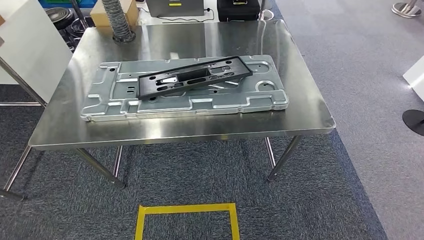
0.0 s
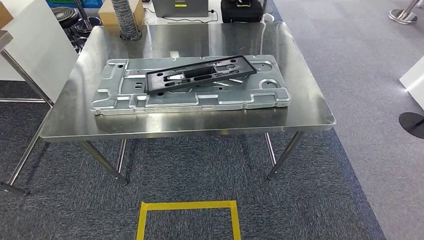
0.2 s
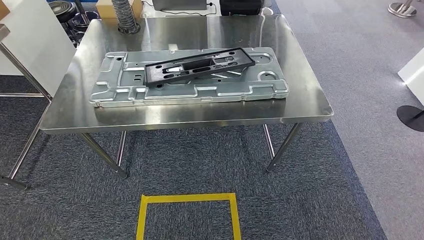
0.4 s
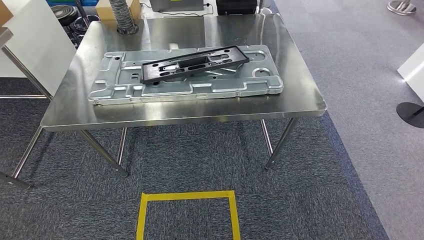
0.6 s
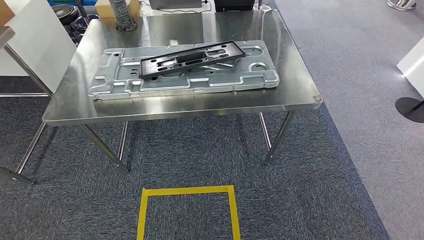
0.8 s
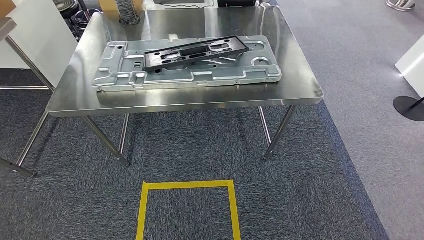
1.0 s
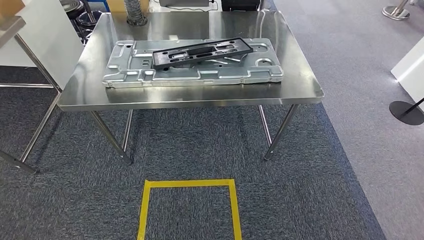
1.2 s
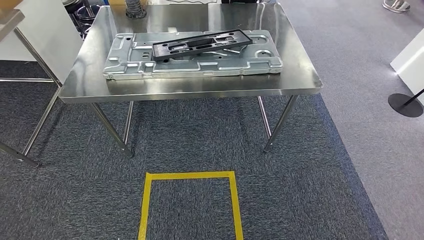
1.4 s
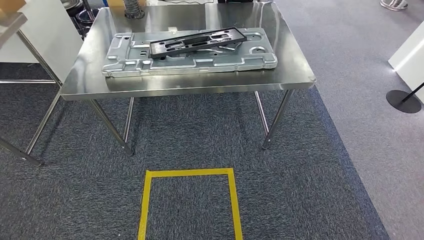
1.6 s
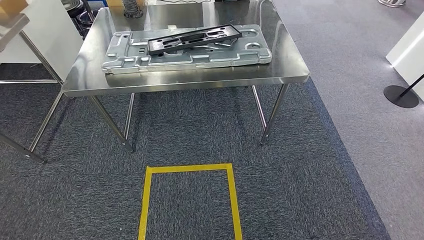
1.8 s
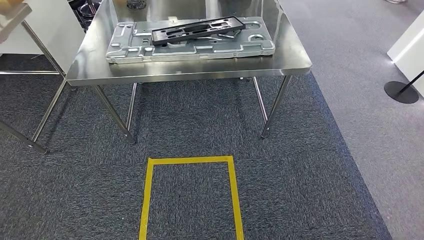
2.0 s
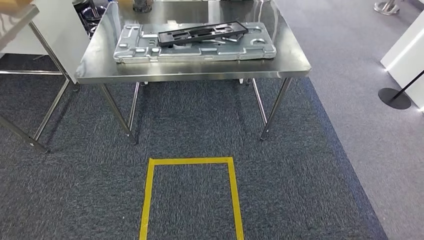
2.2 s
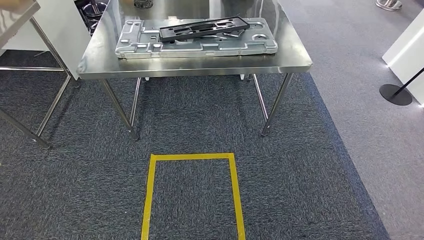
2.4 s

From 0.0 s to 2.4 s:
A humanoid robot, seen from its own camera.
Step, from 0.0 s to 2.4 s: Move to the initial position of the workbench.

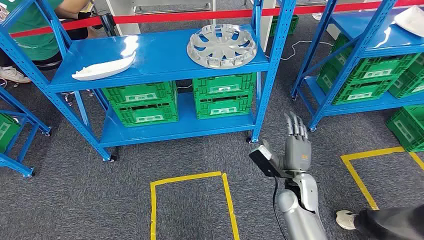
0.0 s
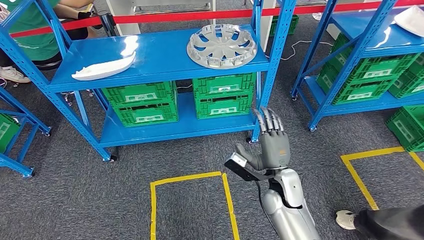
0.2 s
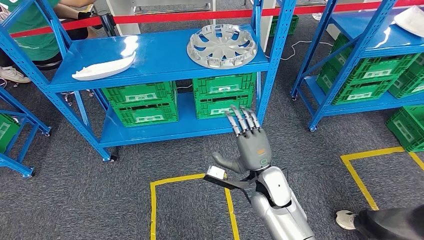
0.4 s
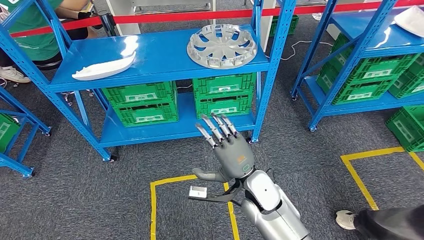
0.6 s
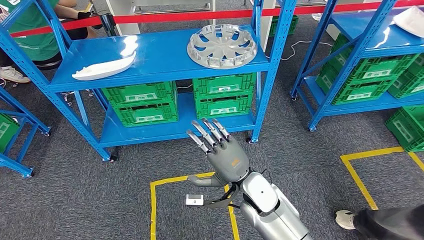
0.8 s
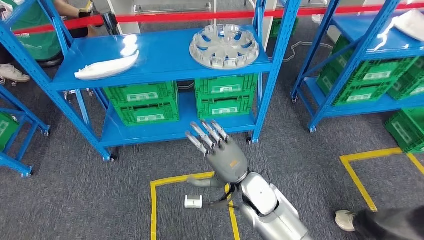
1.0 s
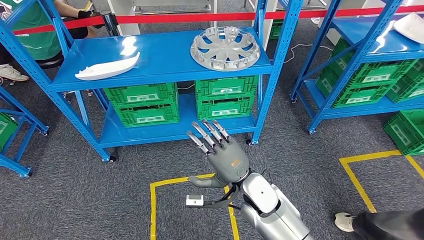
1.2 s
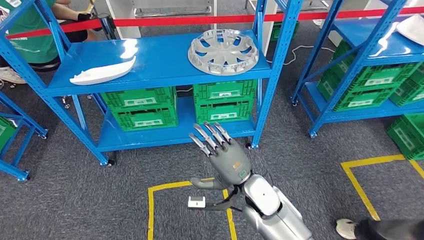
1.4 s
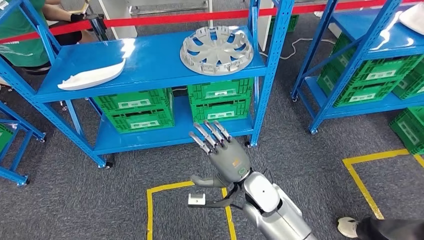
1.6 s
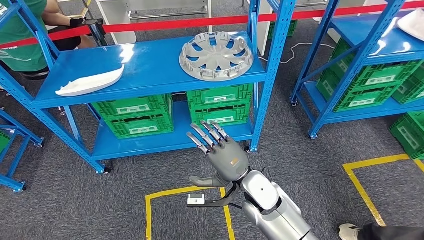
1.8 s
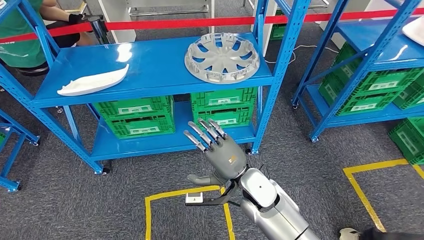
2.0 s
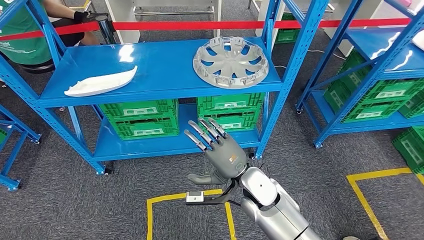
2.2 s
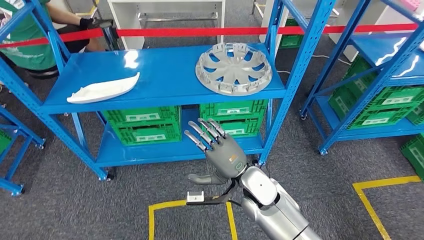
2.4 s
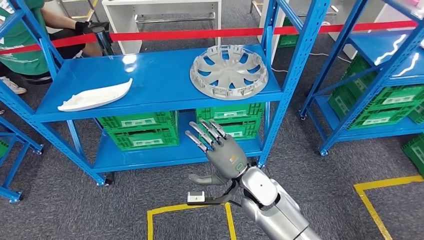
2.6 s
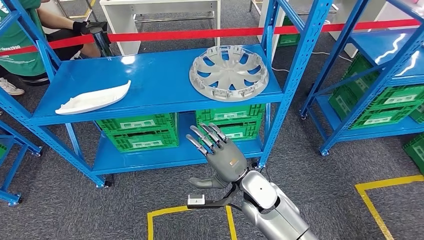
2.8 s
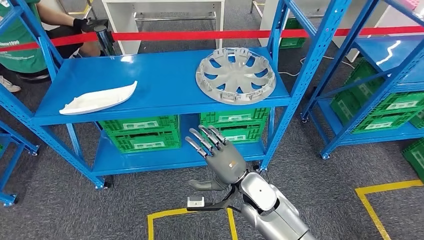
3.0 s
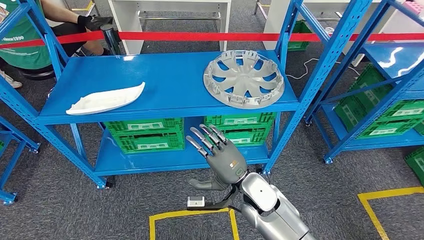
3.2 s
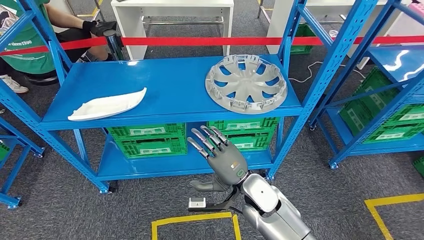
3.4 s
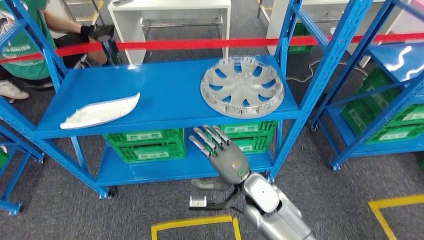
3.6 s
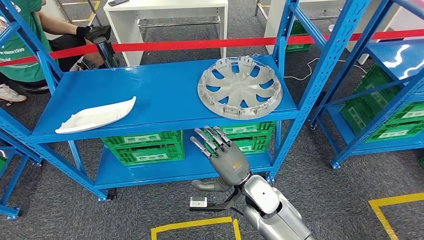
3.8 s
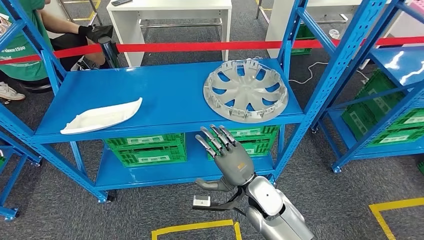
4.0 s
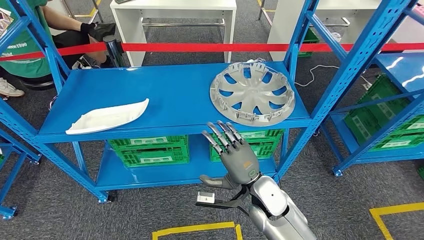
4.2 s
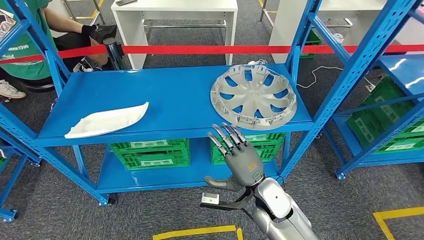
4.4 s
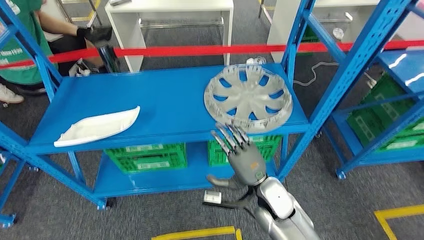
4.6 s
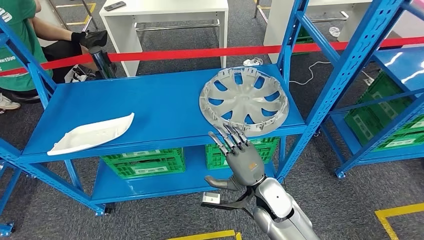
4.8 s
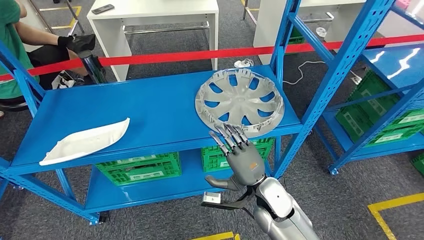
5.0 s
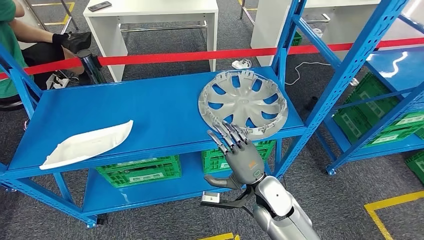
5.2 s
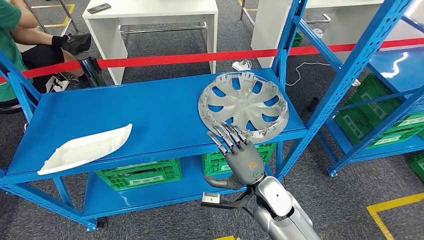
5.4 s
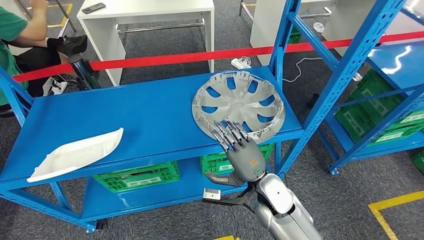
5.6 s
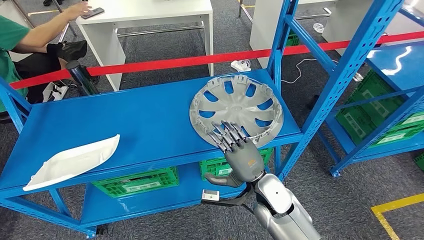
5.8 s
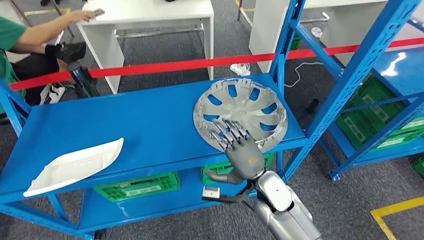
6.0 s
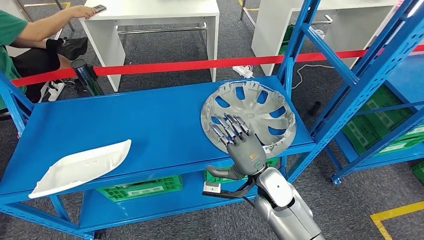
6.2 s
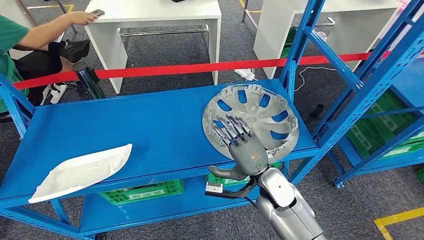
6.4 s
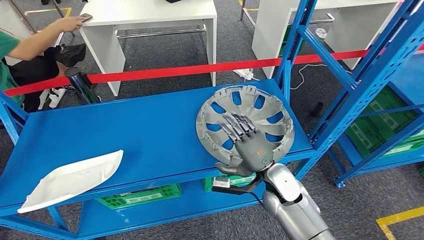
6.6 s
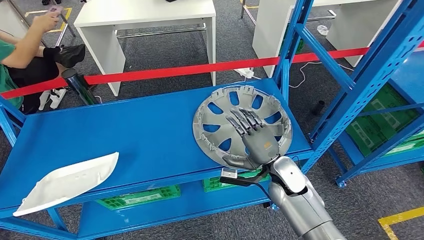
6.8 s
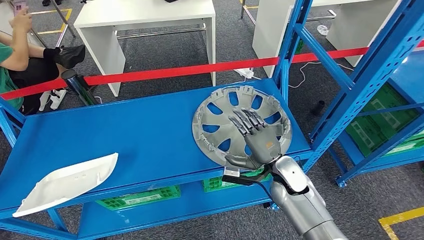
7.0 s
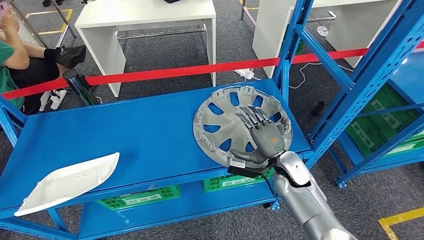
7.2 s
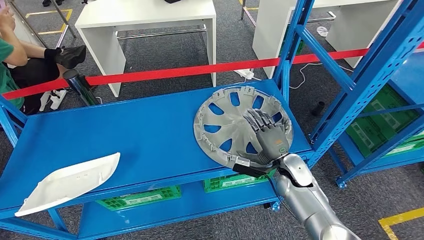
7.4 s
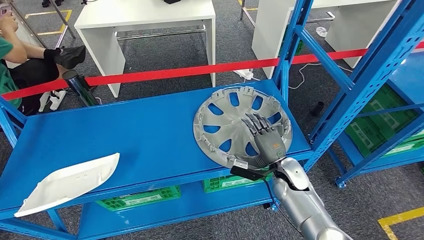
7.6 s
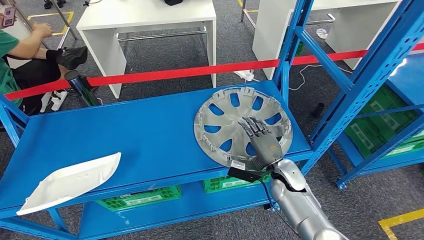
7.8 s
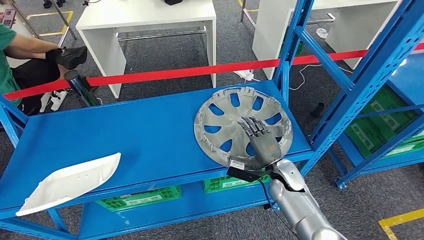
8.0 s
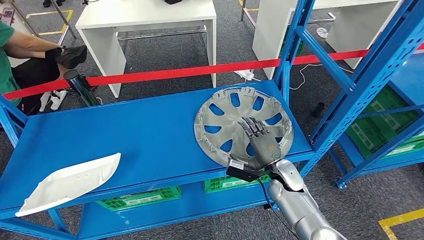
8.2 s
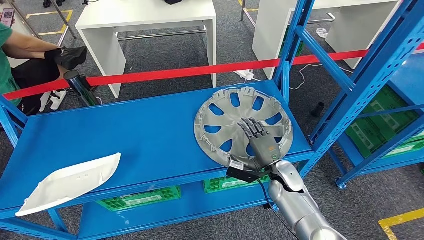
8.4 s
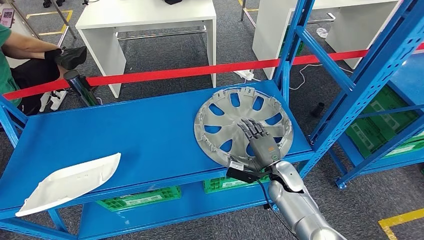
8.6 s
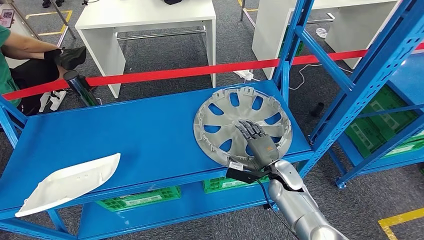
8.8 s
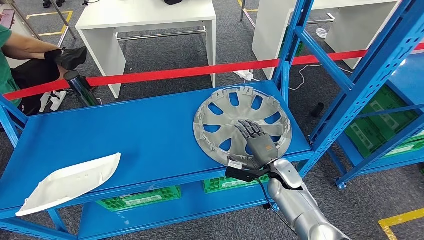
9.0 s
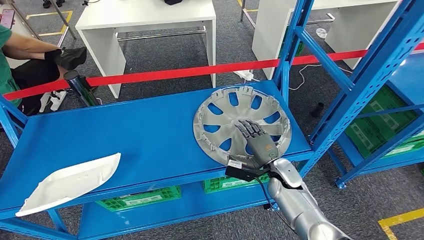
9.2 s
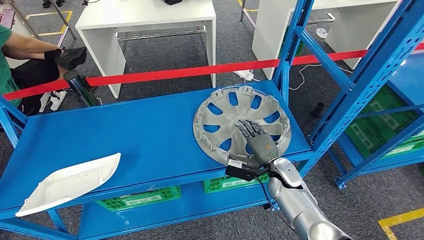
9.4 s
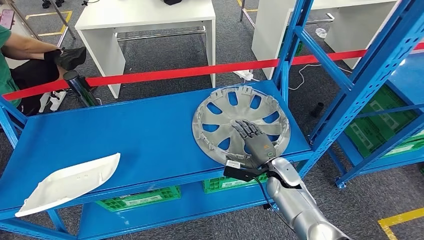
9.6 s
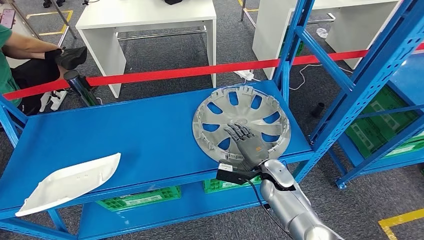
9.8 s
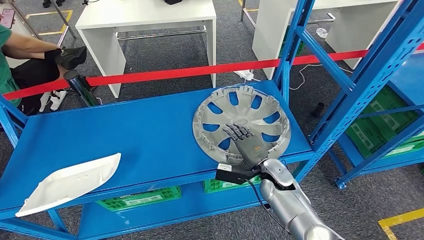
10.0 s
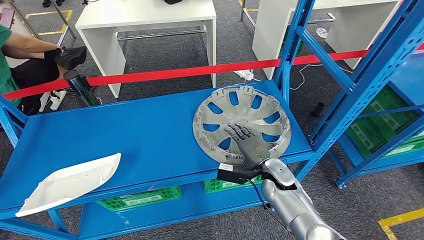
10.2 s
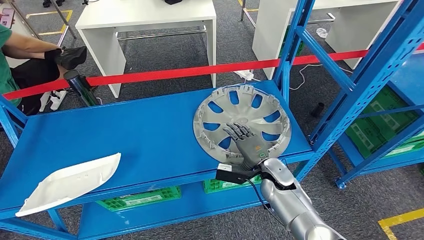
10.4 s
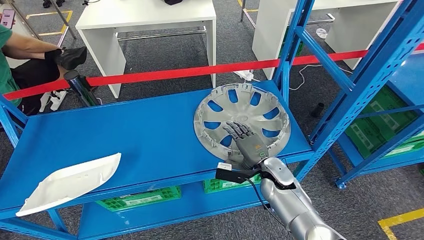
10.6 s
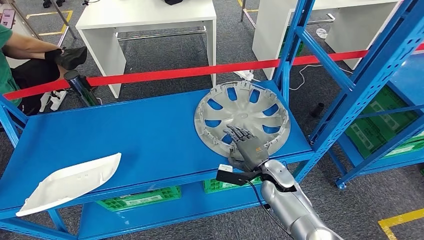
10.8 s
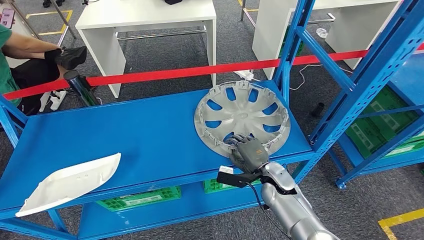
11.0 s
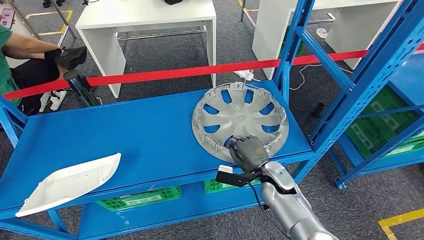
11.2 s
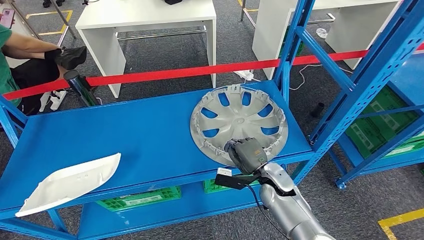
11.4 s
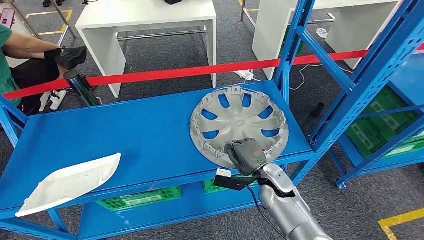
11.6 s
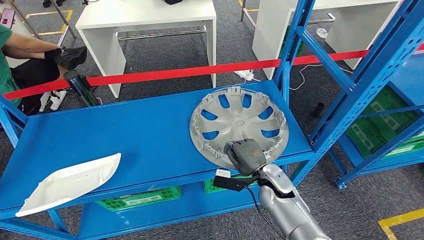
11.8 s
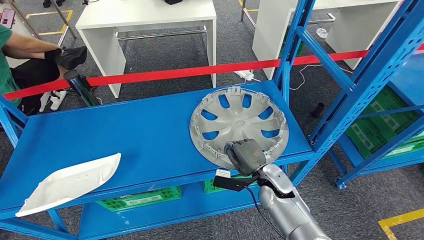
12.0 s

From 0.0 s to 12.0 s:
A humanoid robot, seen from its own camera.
From 7.6 s to 12.0 s: There are only small adjustments of the hands.

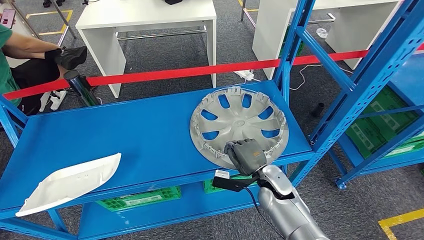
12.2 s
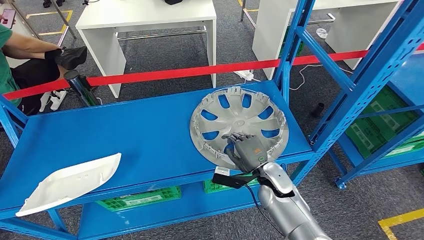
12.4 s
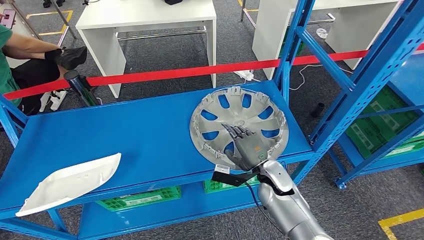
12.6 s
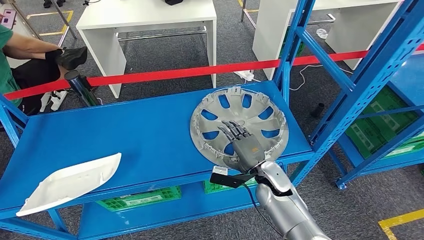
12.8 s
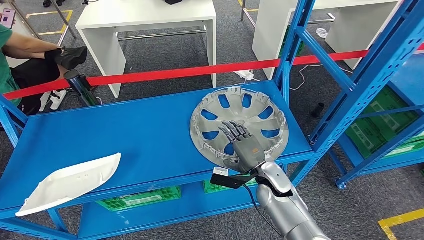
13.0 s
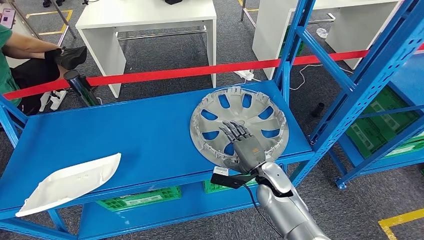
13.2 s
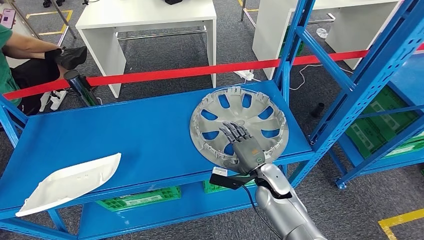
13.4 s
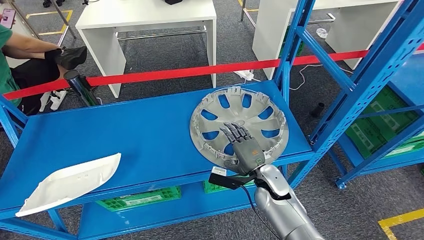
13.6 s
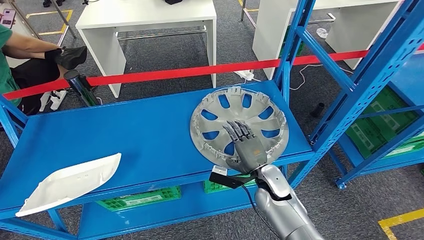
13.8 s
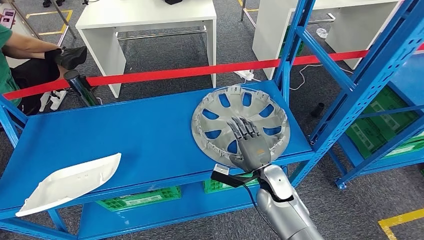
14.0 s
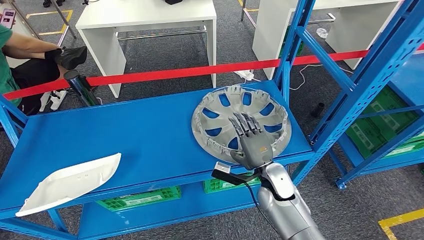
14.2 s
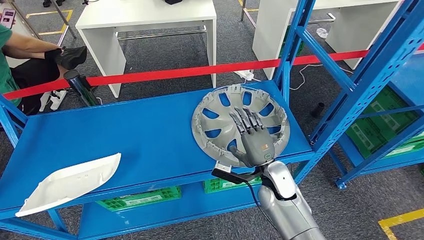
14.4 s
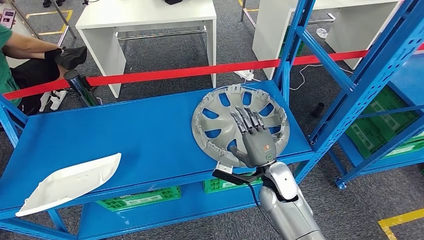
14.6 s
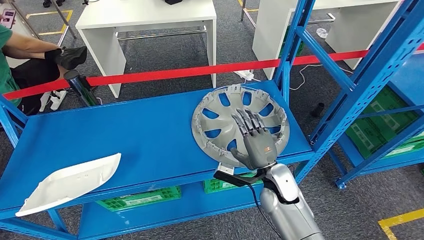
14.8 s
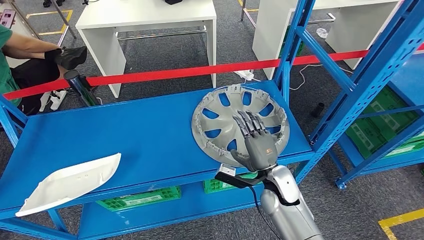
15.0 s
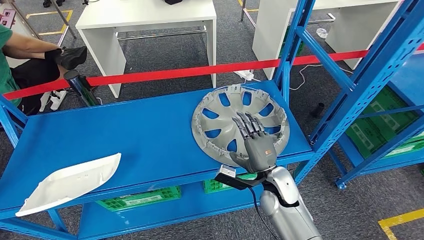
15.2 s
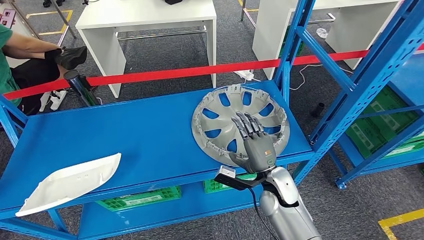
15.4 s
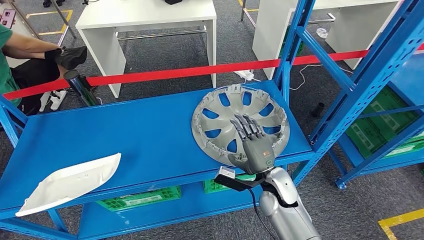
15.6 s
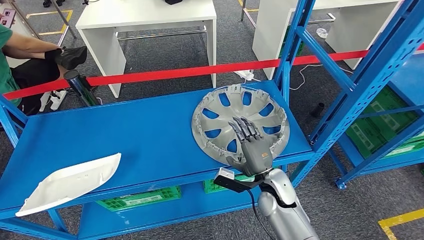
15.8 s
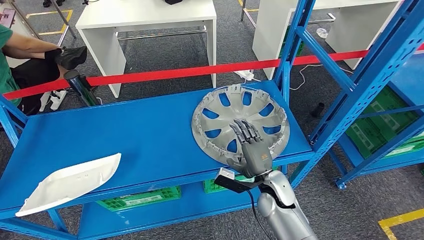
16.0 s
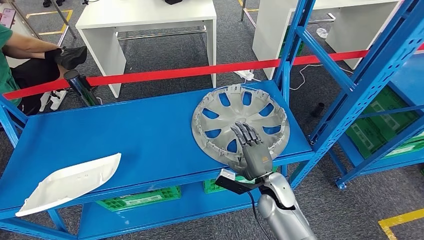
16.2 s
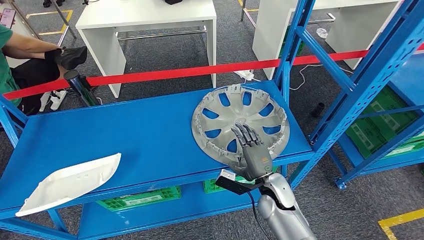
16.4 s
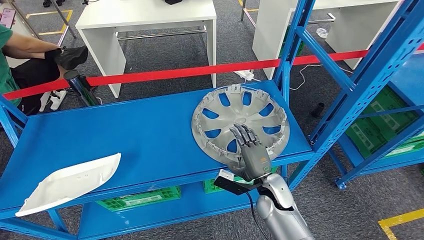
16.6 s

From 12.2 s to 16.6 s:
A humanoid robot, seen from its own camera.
From 12.2 s to 13.6 s: The hands make only small movements.
From 13.6 s to 16.6 s: The hands make only small movements.
